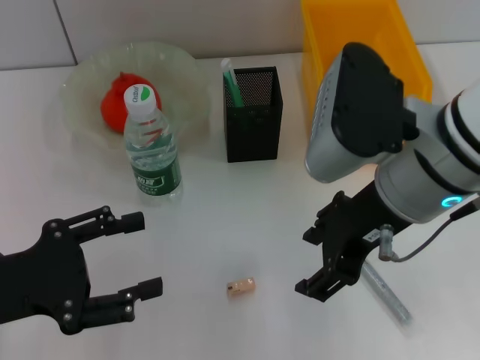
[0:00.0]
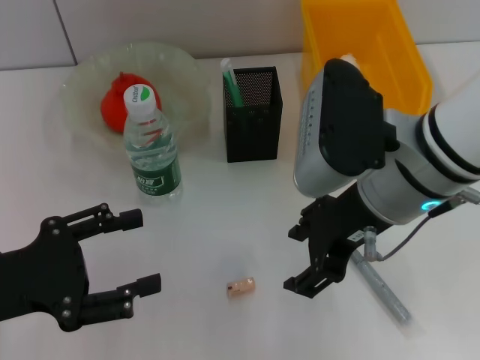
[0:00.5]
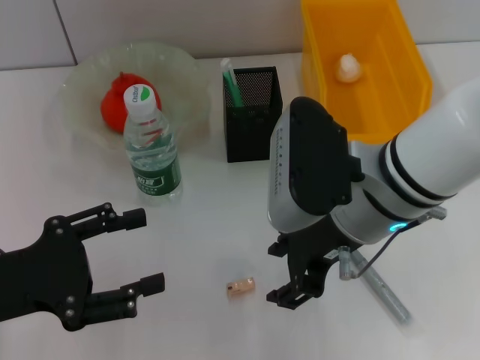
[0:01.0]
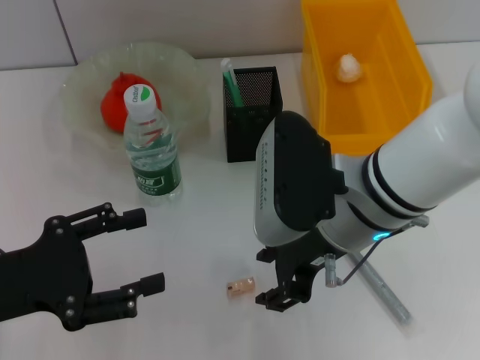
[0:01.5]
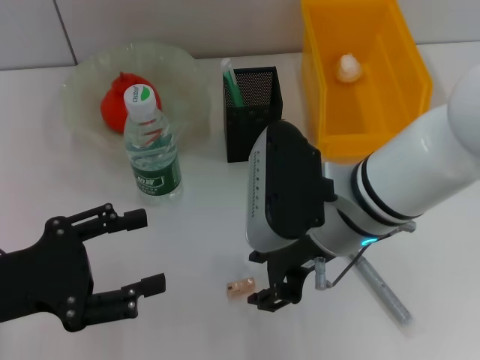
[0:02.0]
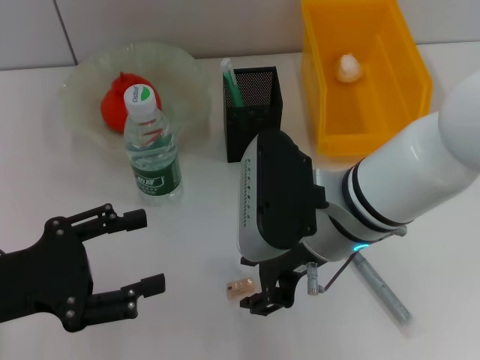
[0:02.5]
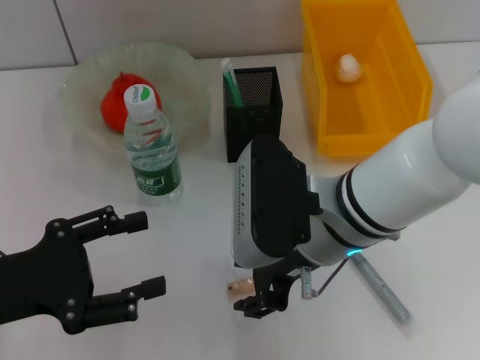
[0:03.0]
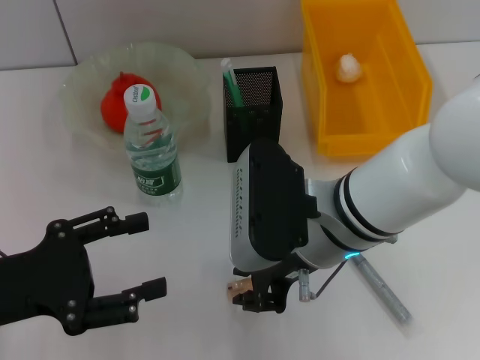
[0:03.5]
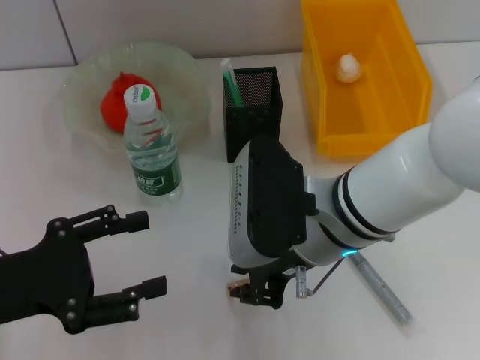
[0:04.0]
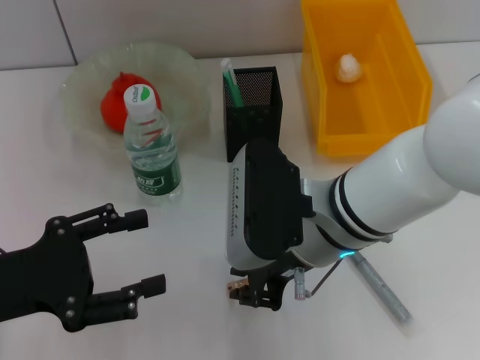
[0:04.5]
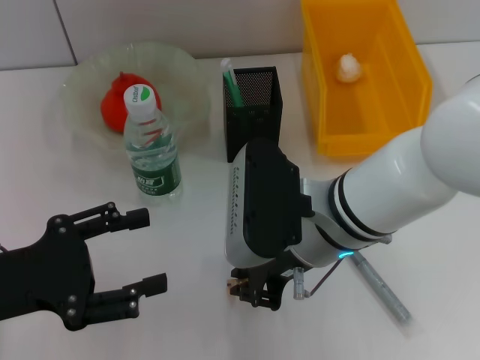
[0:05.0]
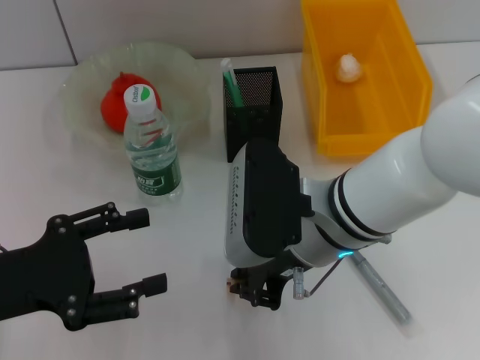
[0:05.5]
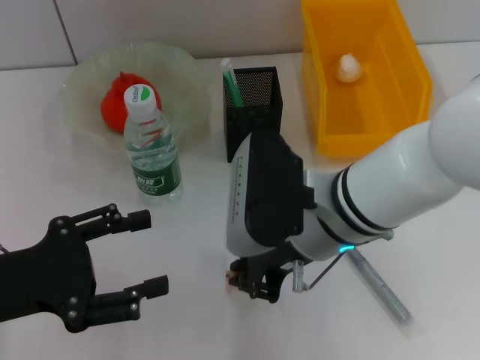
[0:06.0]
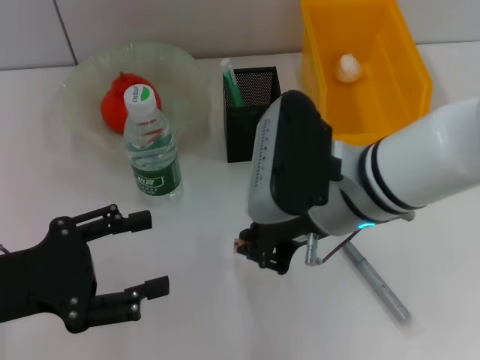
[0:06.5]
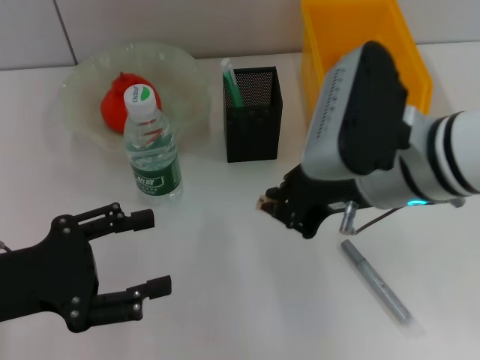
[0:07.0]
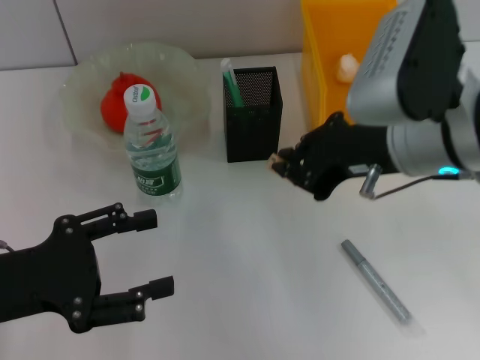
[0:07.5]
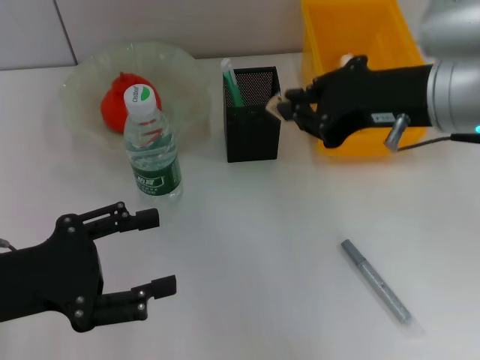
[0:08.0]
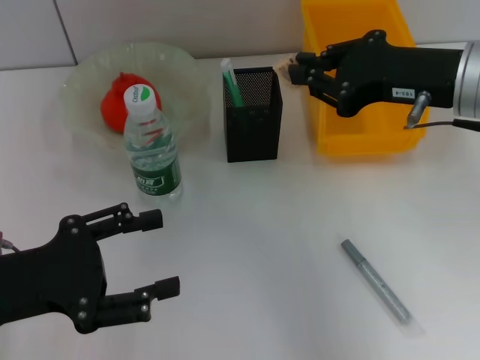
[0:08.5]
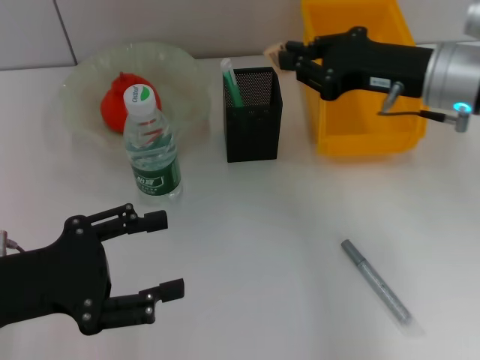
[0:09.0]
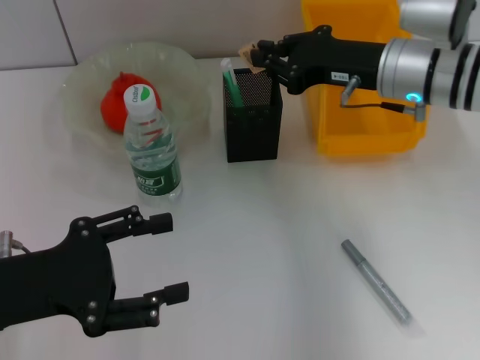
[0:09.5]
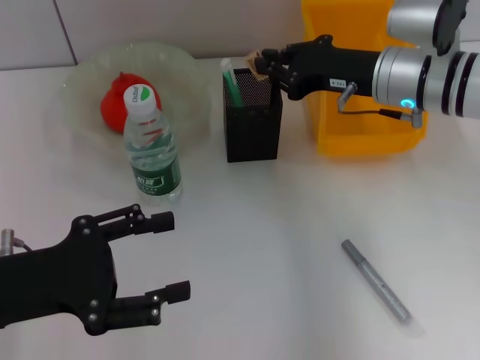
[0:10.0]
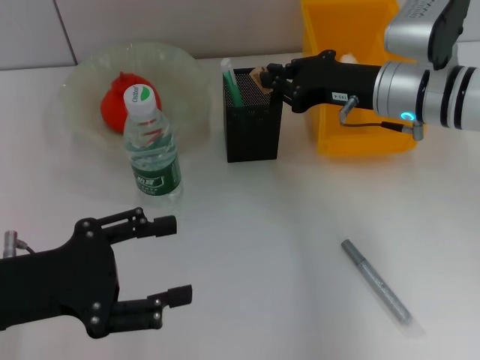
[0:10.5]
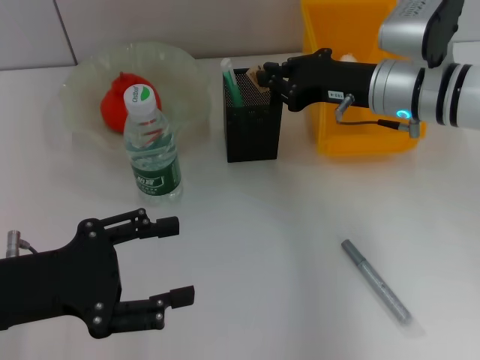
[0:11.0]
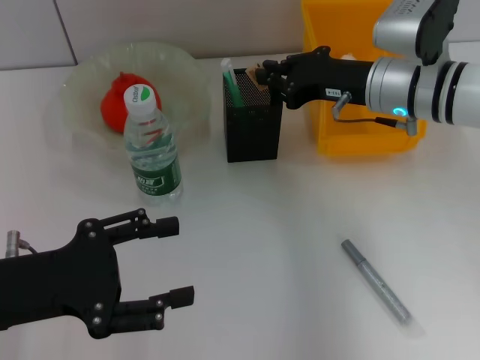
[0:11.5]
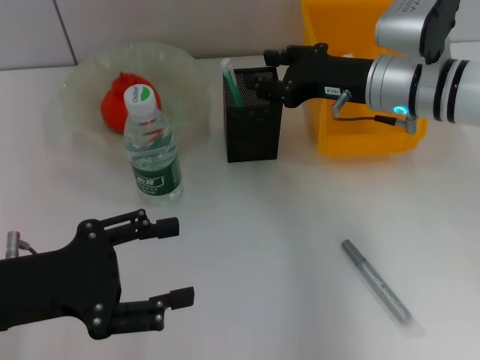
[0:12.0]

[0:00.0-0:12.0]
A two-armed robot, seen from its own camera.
Step, 0:00.0 to 0:05.0: Grab the eraser with the right hand.
Step, 0:05.5 to 0:11.5: Put the eraser into the pen holder with the right hand.
0:00.0 to 0:02.0: The right gripper is displaced downward by some 5 cm.
0:02.0 to 0:04.0: The right gripper closes its fingers.
0:04.0 to 0:06.0: Both grippers stay put.
0:06.0 to 0:08.0: The right gripper heads to the right and upward, covering some 15 cm.
0:08.0 to 0:10.0: The right gripper shifts about 15 cm forward and downward.
0:10.0 to 0:12.0: Neither gripper changes place.

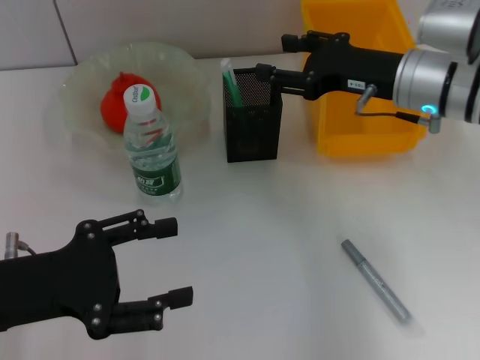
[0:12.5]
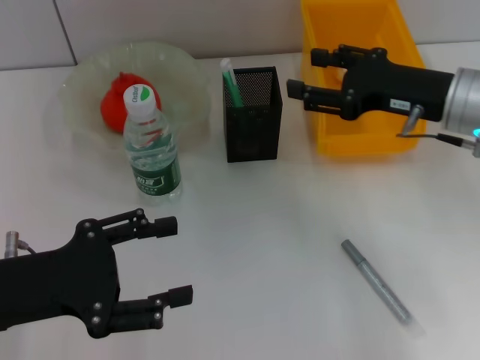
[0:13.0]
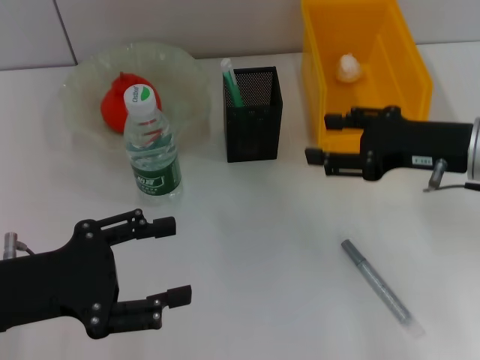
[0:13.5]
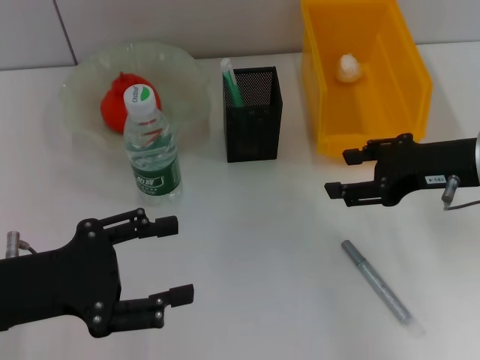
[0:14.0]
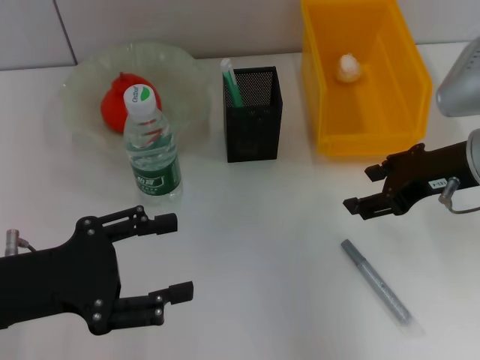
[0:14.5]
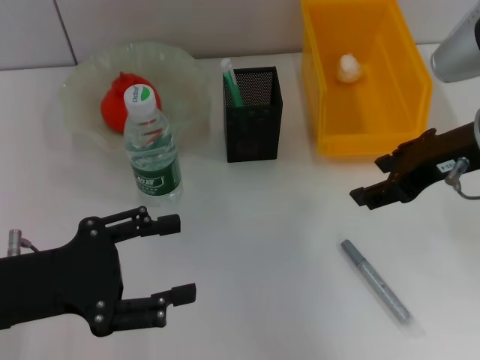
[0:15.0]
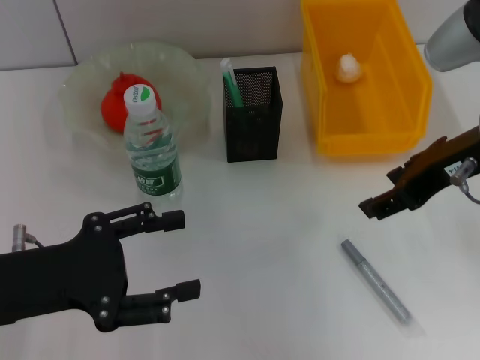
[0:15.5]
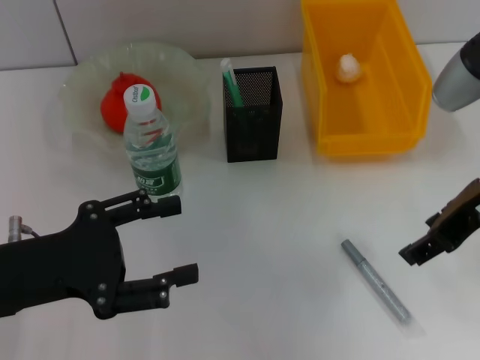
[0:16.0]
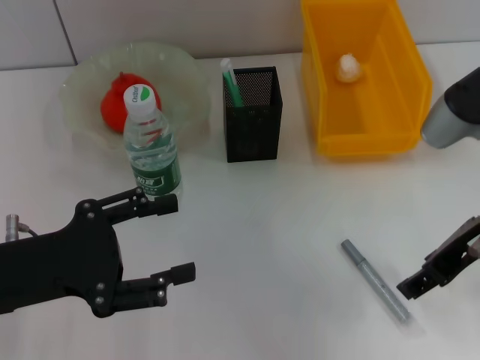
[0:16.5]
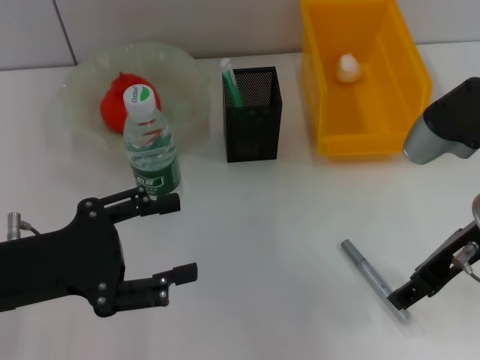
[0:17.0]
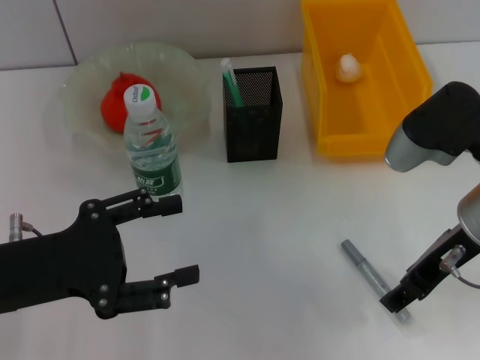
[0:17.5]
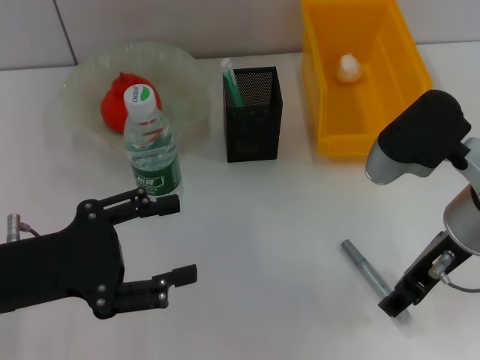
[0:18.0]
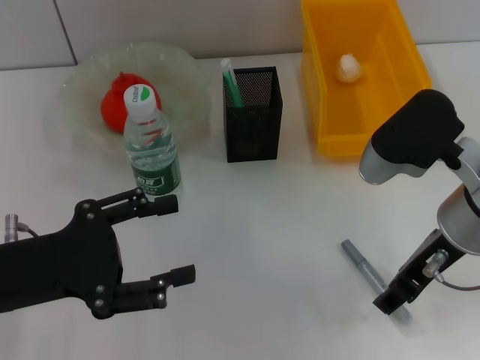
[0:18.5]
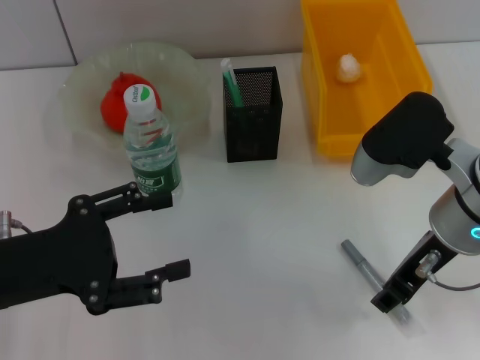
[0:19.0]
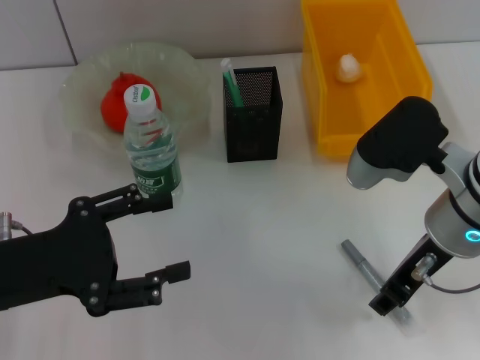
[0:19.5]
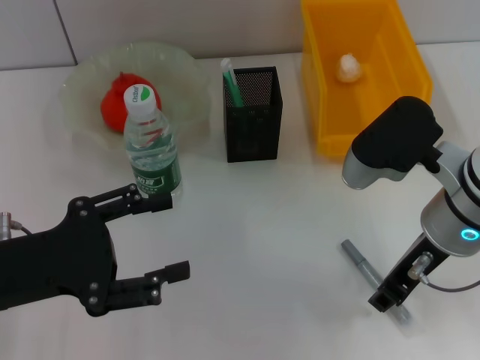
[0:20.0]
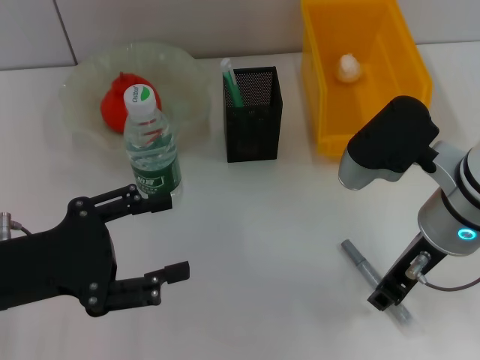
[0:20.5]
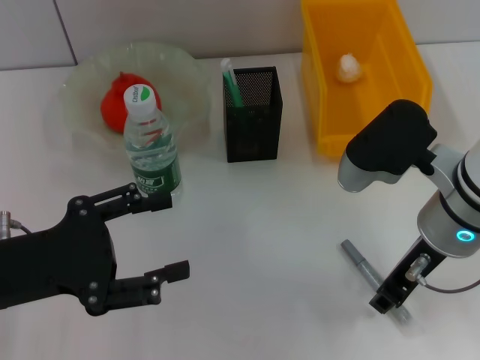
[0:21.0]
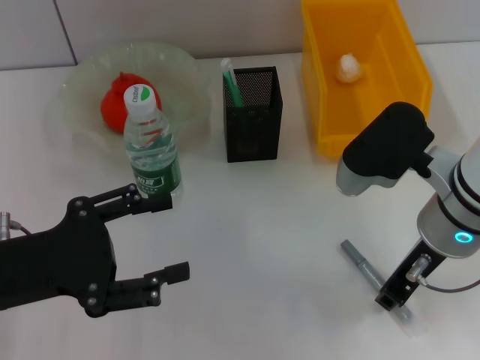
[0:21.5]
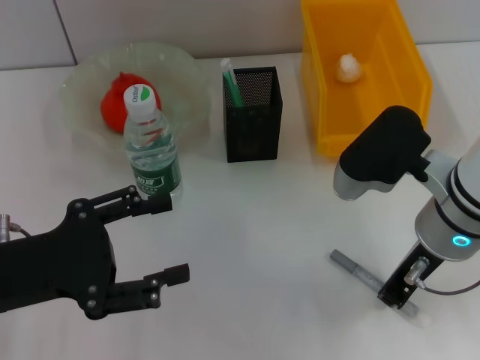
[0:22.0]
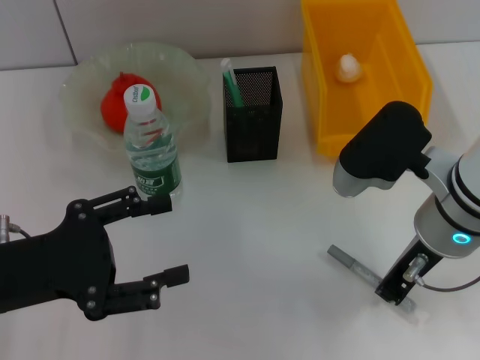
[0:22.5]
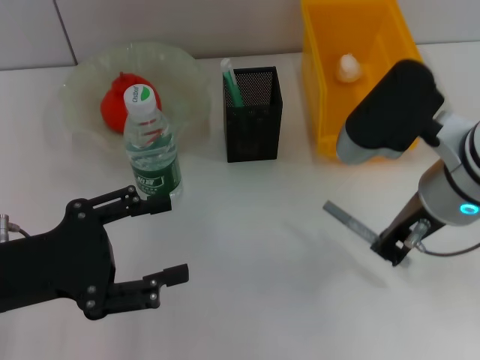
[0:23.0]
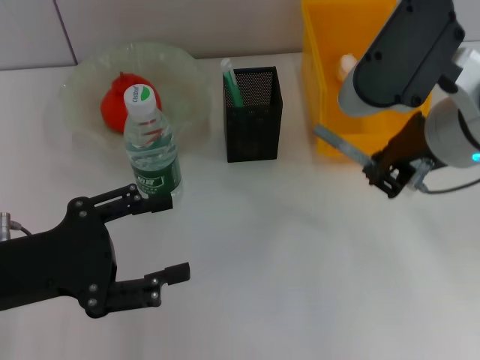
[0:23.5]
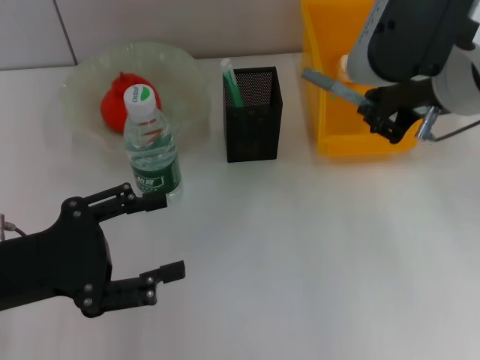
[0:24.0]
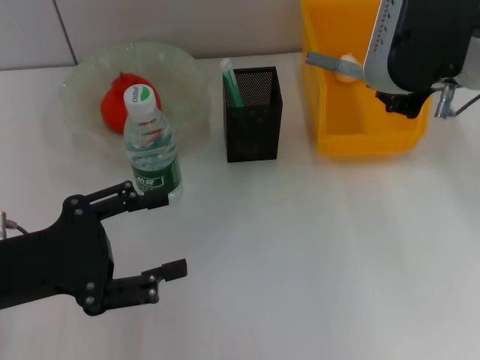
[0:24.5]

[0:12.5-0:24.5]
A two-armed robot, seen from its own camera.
Step, 0:12.5 to 0:22.0: Grab the gray glue with the right hand.
0:12.5 to 0:14.5: The right gripper moves backward, about 5 cm.
0:16.5 to 0:18.5: The grippers stay close to where they were, moving slightly.
0:18.5 to 0:20.5: The right gripper closes.
0:20.5 to 0:22.5: The right gripper closes.
0:22.5 to 0:24.5: The right gripper heads upward, covering approximately 10 cm.

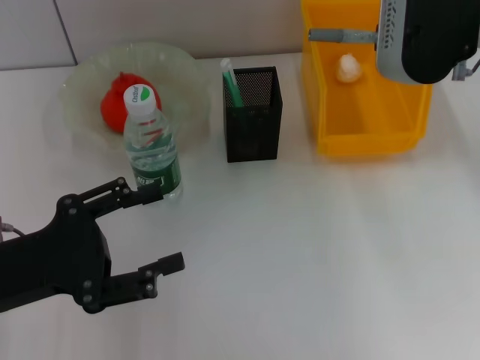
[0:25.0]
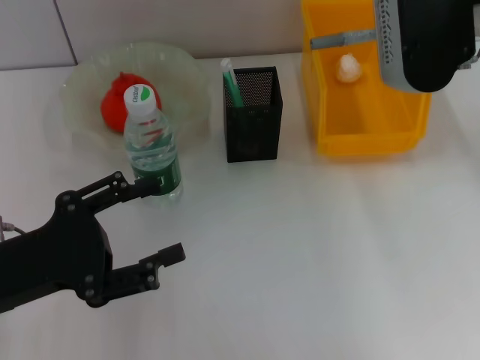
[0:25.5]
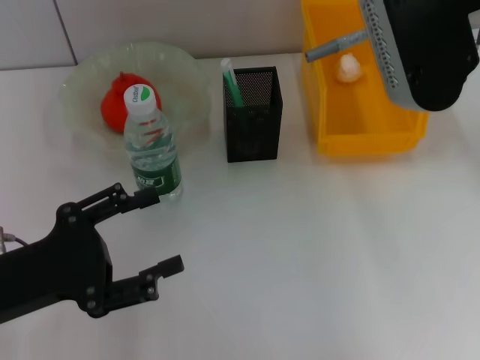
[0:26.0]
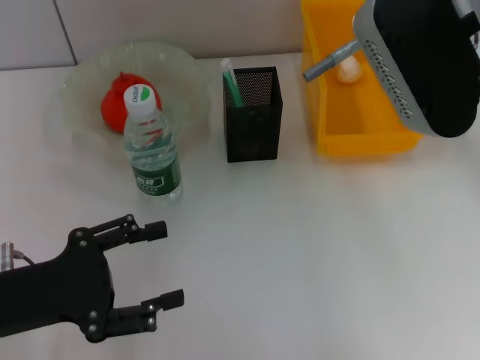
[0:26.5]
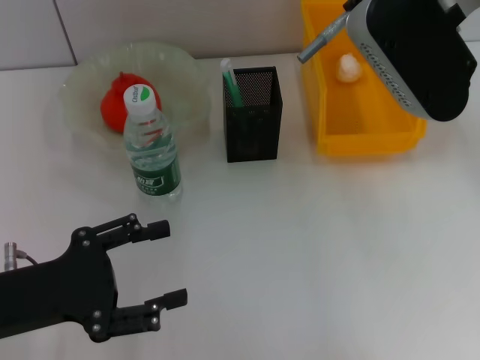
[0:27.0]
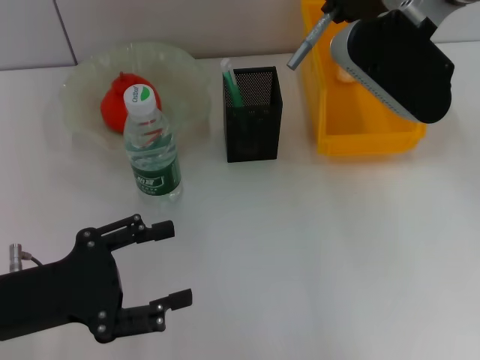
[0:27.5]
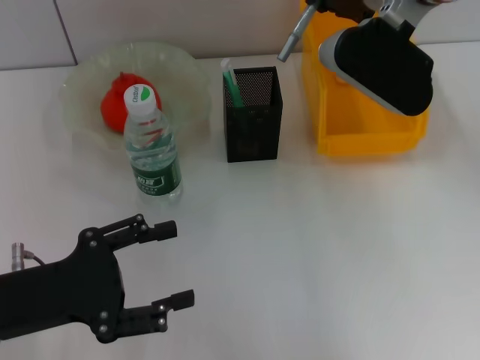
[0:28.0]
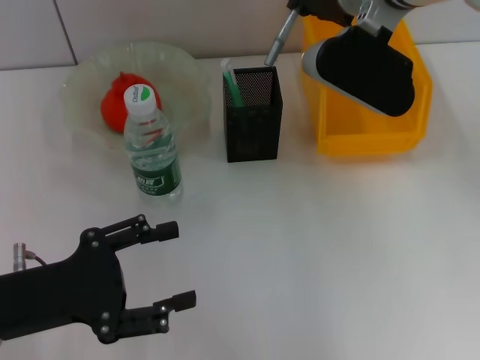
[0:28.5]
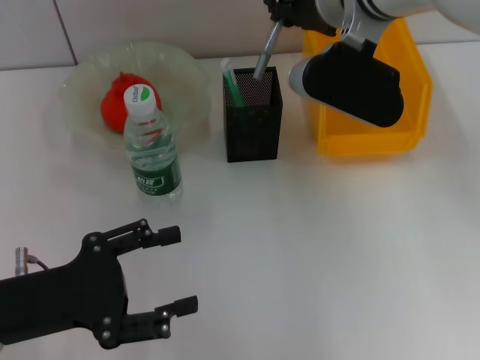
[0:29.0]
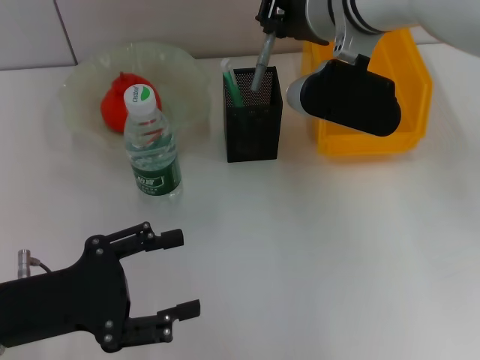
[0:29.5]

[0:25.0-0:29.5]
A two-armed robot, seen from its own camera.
0:27.0 to 0:29.5: The right gripper heads downward and to the left, covering approximately 10 cm.
